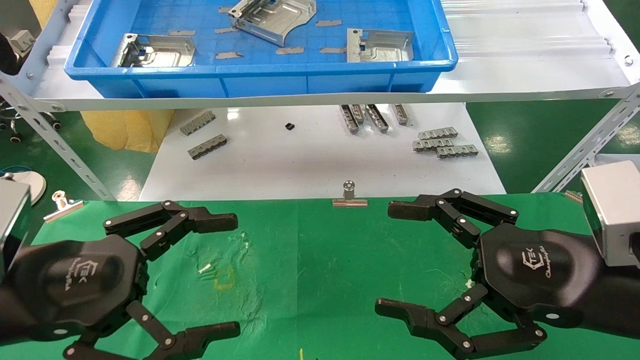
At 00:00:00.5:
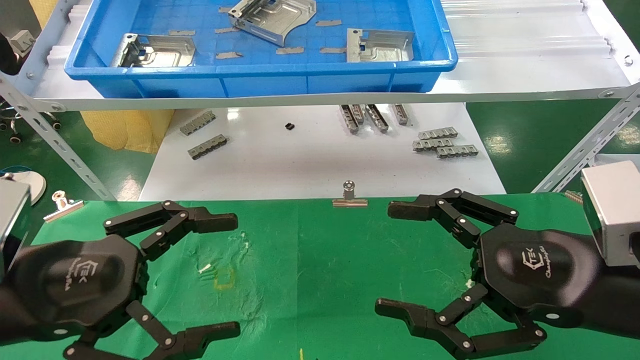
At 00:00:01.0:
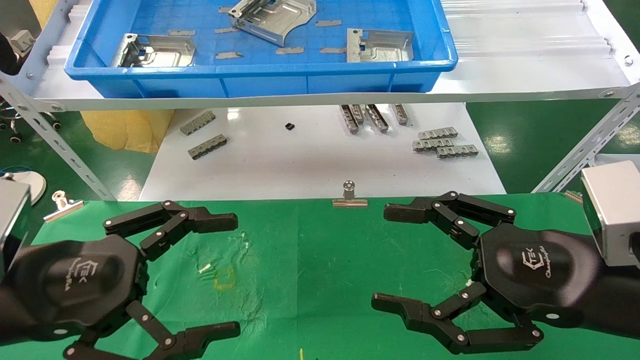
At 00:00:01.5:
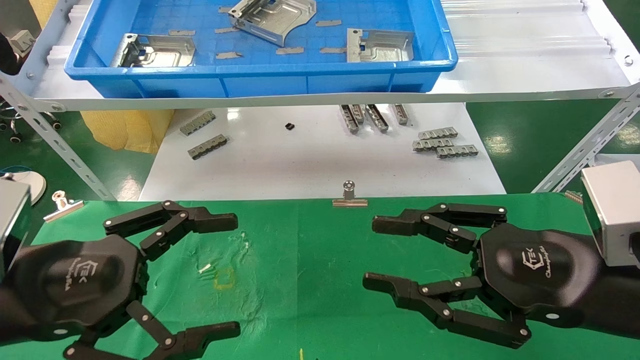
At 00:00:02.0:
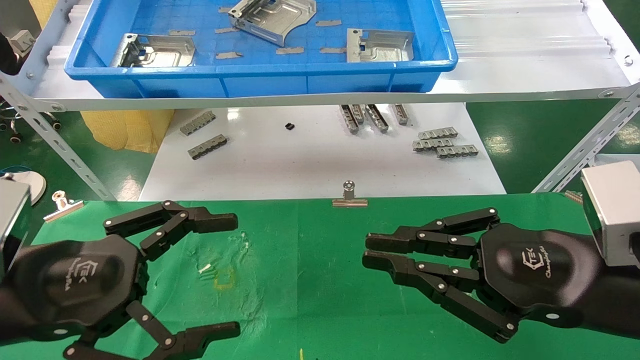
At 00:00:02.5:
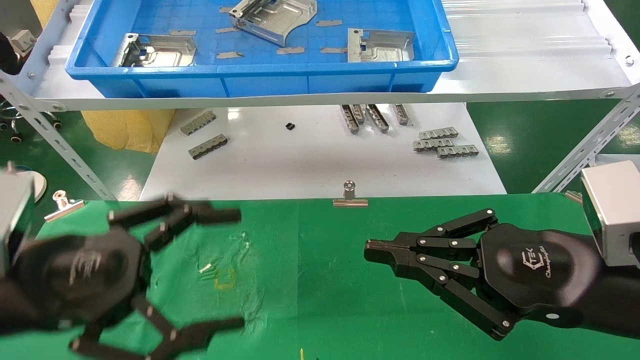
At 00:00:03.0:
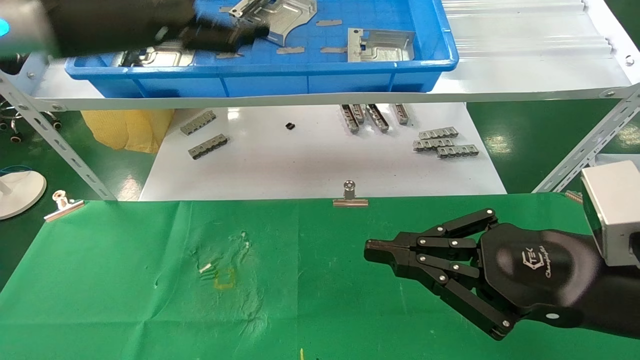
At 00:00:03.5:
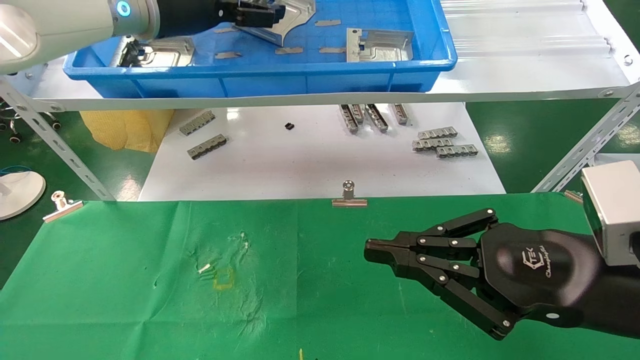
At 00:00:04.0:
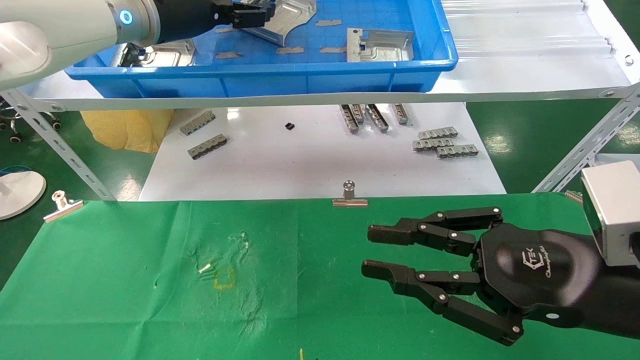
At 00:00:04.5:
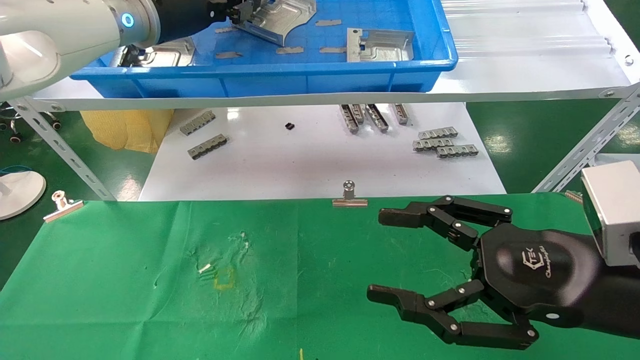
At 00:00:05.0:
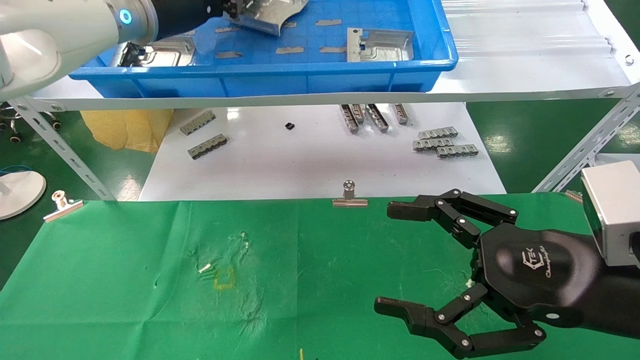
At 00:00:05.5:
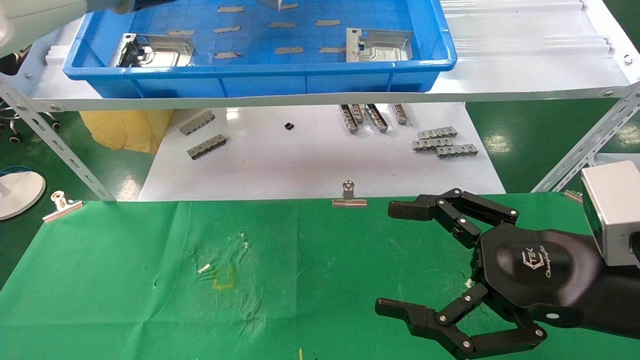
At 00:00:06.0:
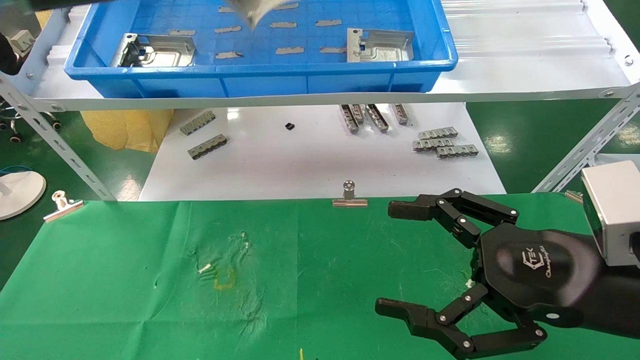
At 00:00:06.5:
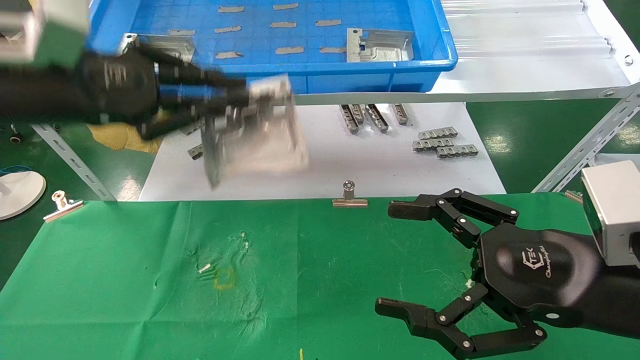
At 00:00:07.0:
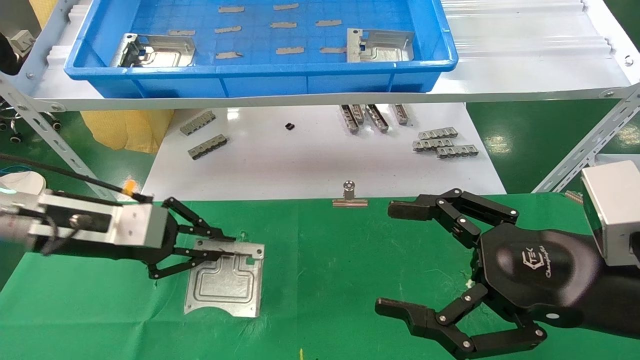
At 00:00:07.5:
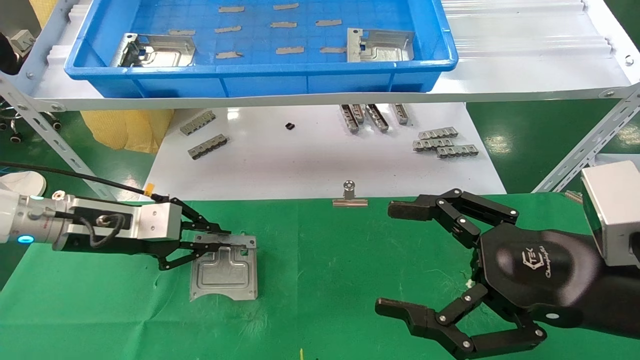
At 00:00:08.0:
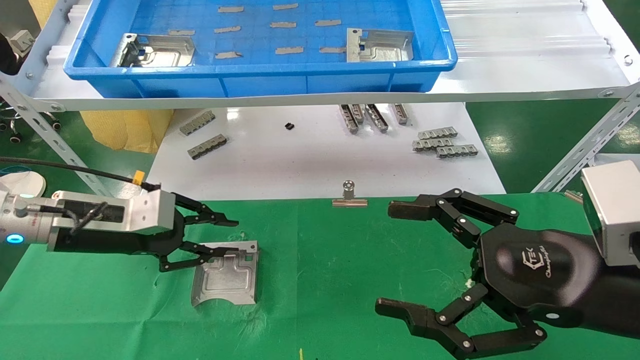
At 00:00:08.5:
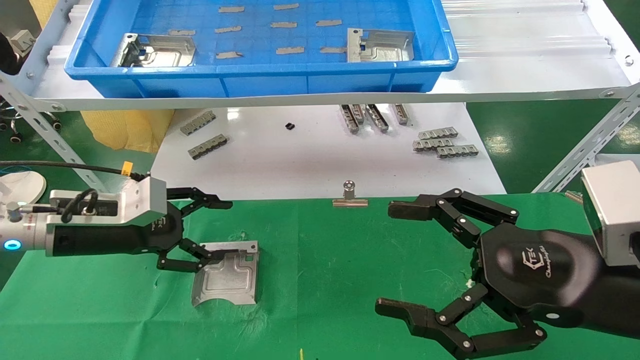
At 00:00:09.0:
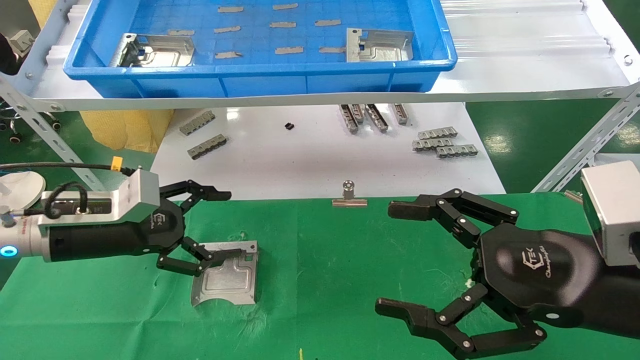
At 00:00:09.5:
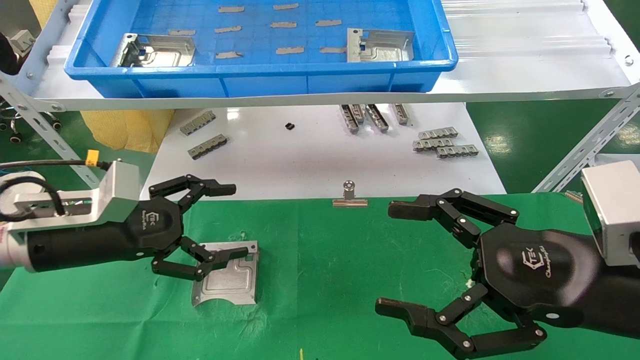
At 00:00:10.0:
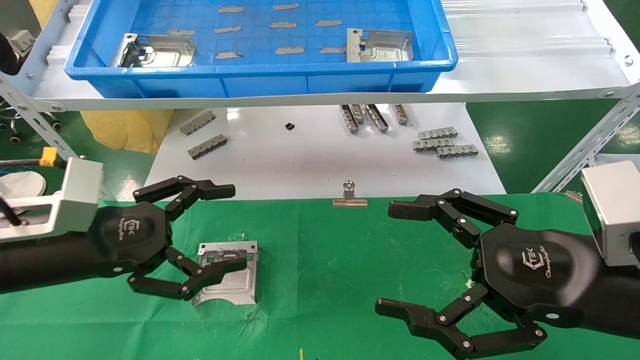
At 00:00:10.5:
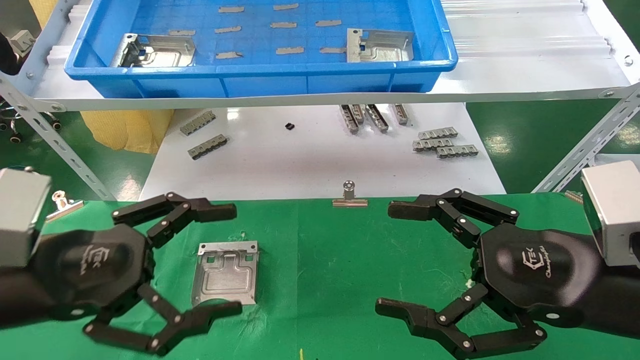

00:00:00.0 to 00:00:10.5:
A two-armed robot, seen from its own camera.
Task of the whole recording: use the mechanical arm to pick up the parts and place them on the table.
Step, 00:00:02.5 to 00:00:04.5: Pick up the hard drive bracket from the feeding area.
Step, 00:00:05.0 to 00:00:08.0: Place the hard drive bracket into the box.
00:00:00.0 to 00:00:02.0: The right gripper closes up.
00:00:02.0 to 00:00:04.0: The left gripper shifts approximately 35 cm forward and upward.
00:00:04.0 to 00:00:06.5: The left gripper is displaced backward, to the left and downward by about 20 cm, and closes. Meanwhile the right gripper opens its fingers.
00:00:06.5 to 00:00:08.5: The left gripper heads downward, covering approximately 15 cm, and opens.
00:00:08.5 to 00:00:10.5: The left gripper travels backward by some 15 cm, and opens.

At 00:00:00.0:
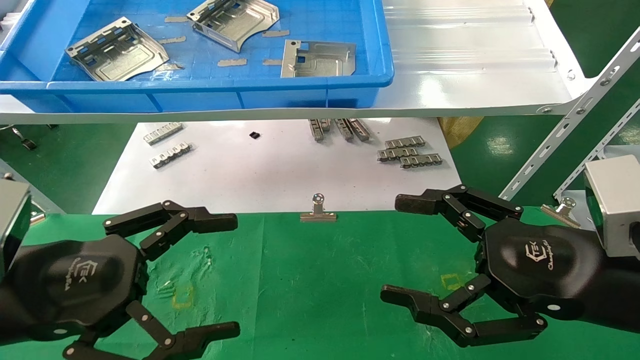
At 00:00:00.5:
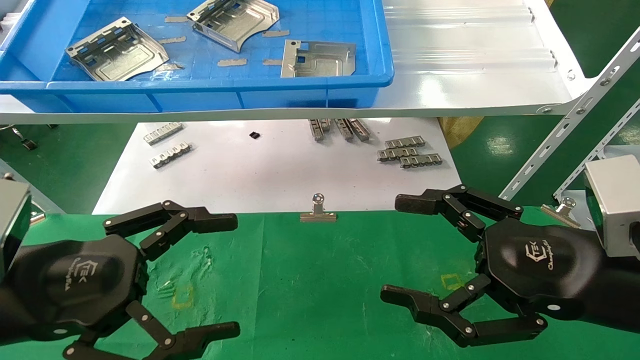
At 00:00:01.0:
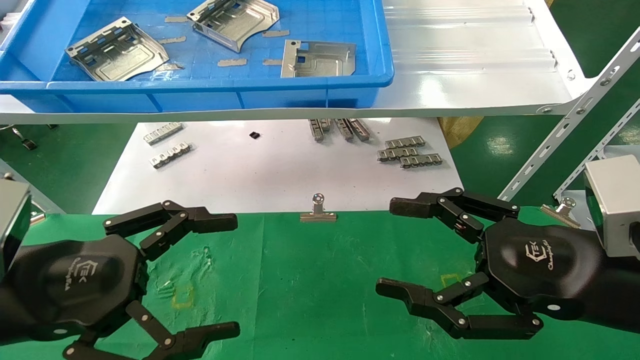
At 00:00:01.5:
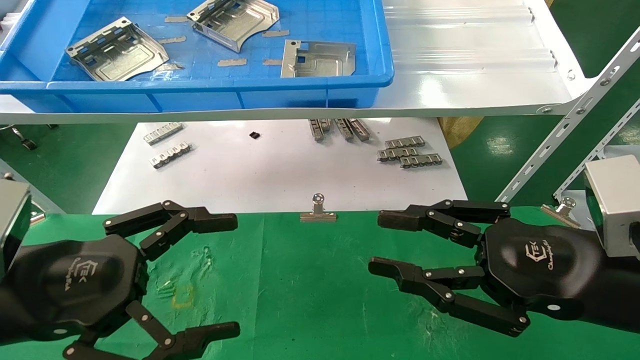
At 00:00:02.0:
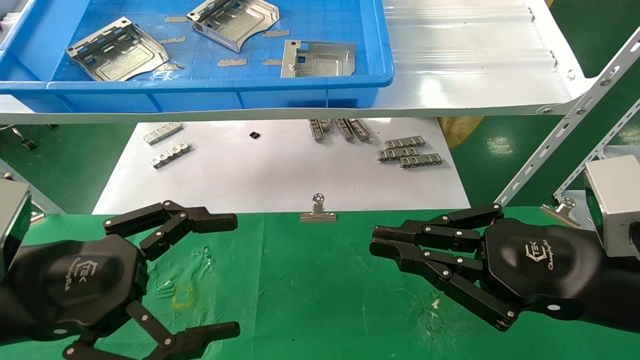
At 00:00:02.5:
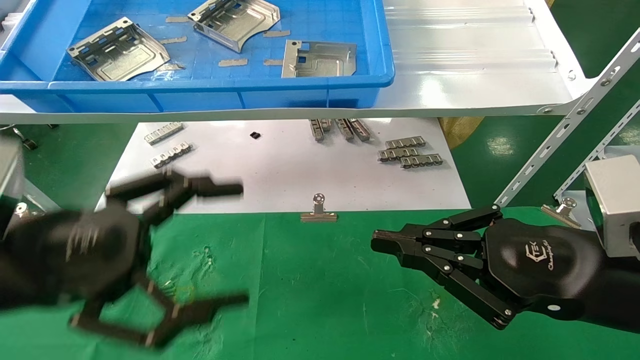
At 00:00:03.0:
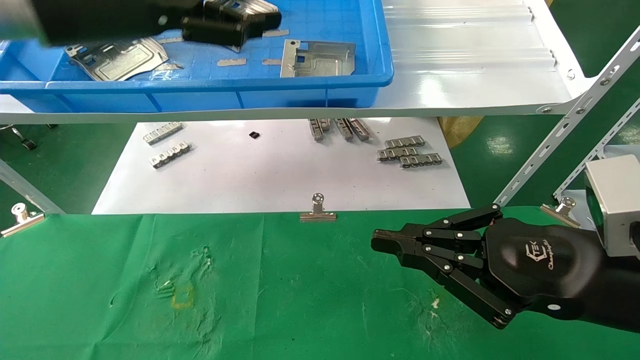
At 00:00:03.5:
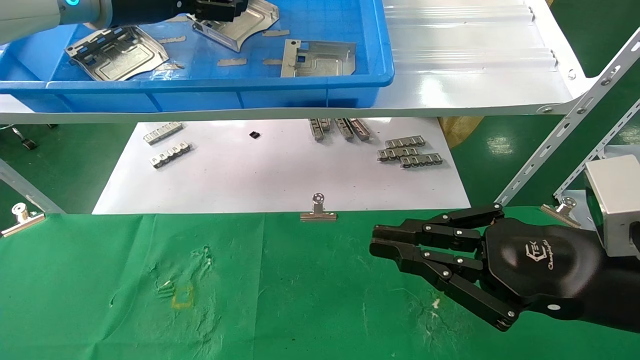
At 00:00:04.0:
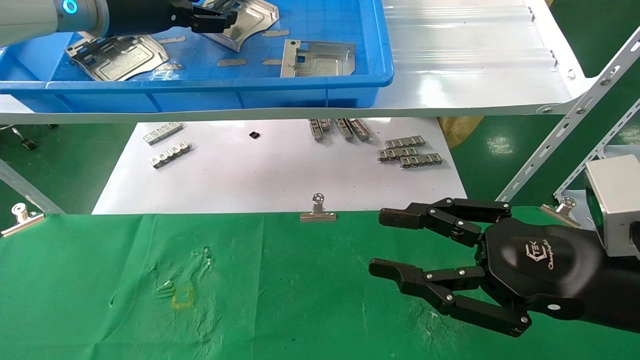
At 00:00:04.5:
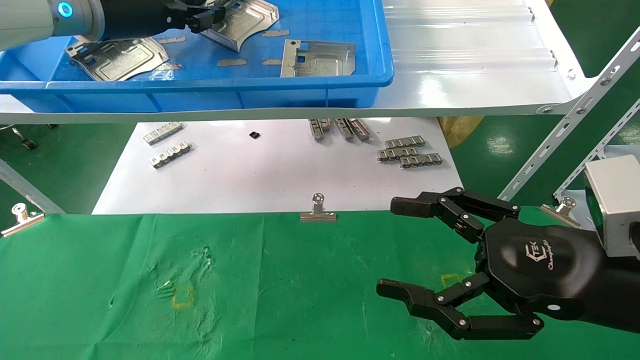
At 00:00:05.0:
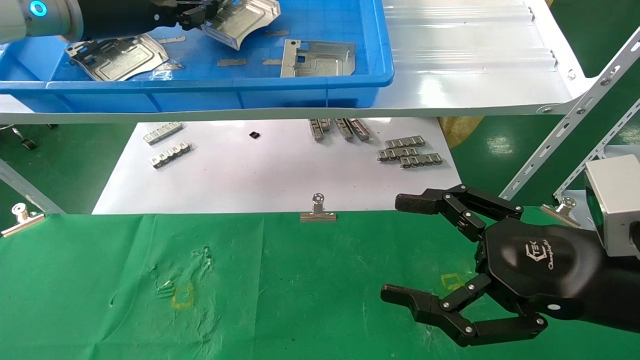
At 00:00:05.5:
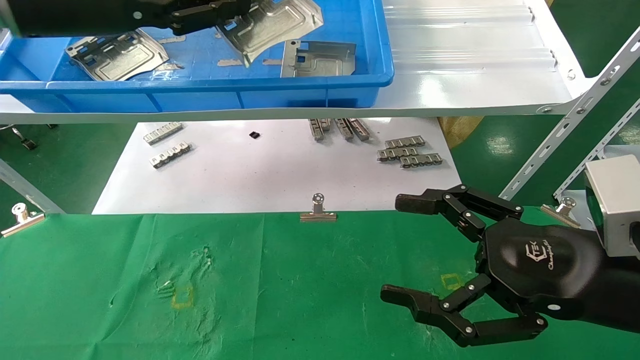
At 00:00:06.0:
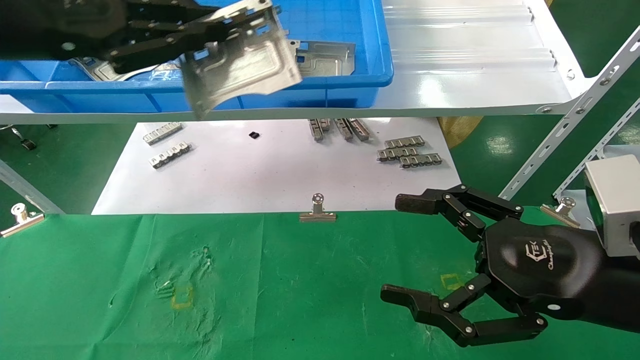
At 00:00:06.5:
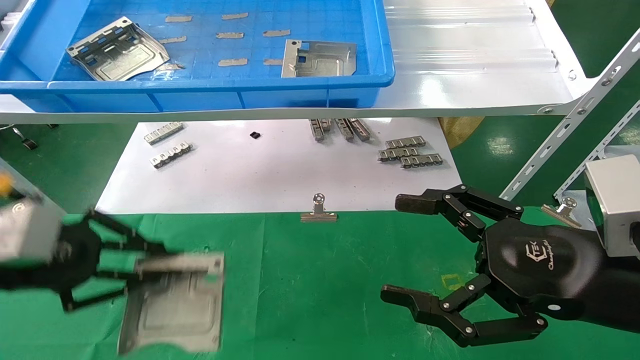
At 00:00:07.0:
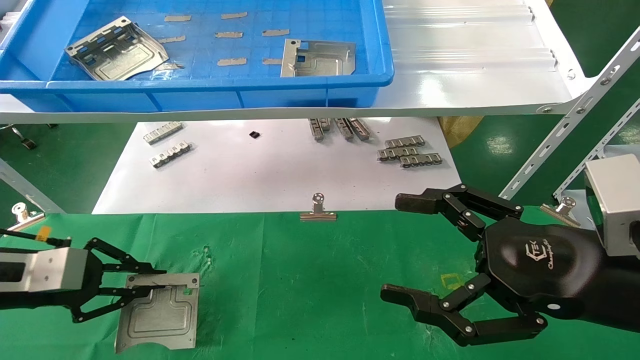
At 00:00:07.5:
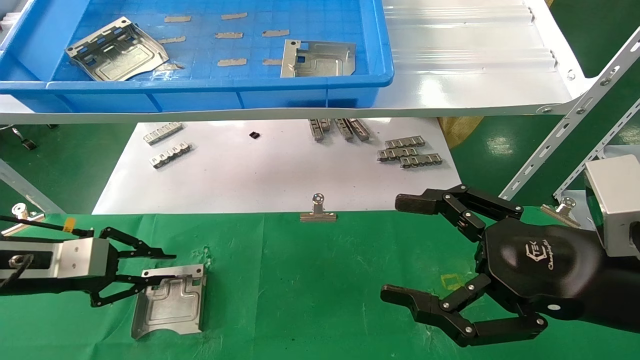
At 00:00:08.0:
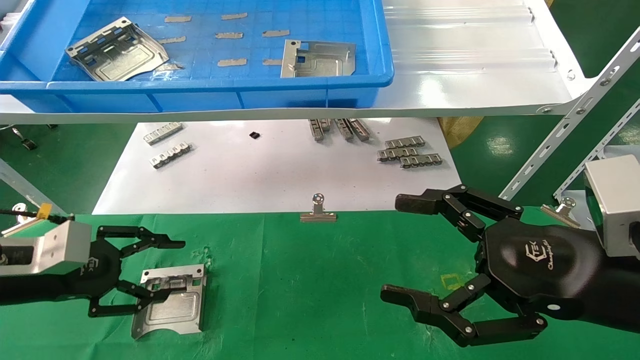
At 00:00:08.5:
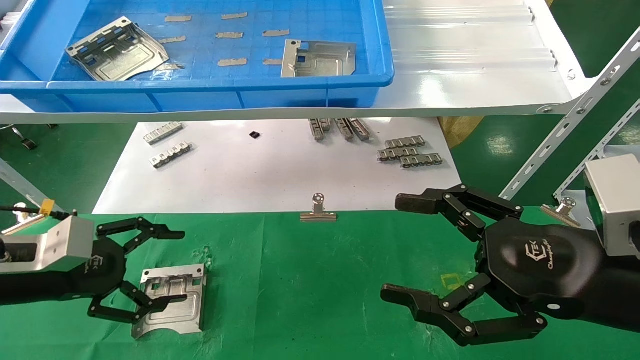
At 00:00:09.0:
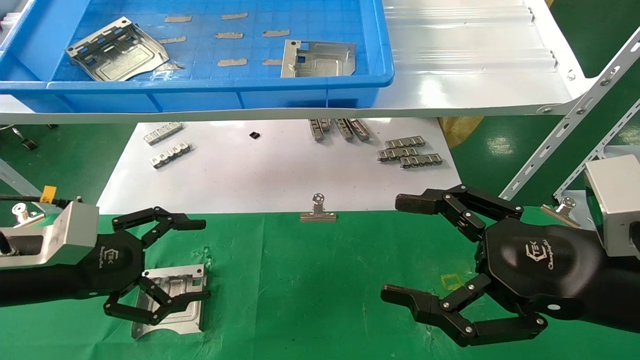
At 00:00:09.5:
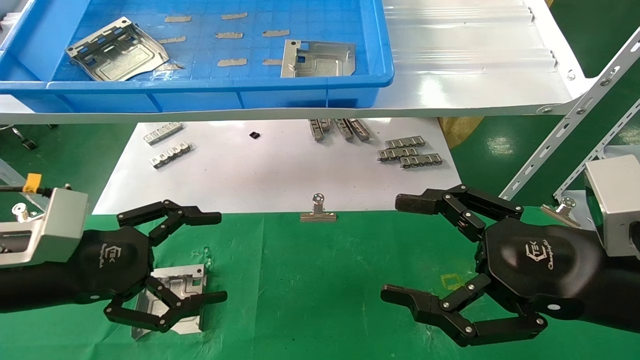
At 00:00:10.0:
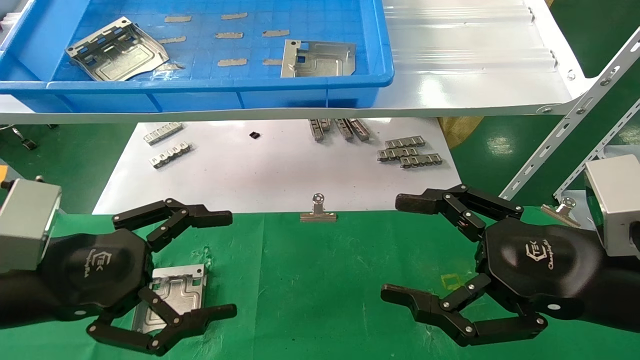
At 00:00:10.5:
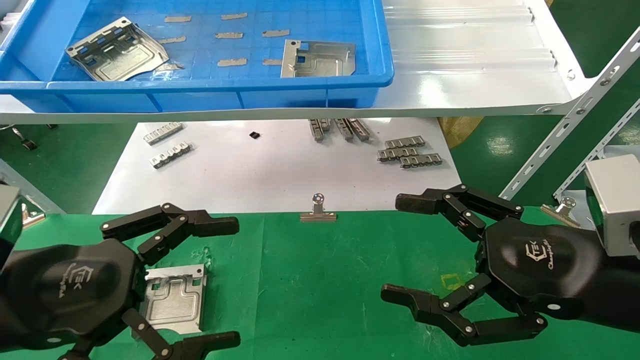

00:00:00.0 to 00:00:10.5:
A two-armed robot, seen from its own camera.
Task of the whole recording: use the mechanical arm to pick up the parts and place them on the table.
Step, 00:00:03.0 to 00:00:04.5: Pick up the hard drive bracket from the feeding area.
Step, 00:00:05.0 to 00:00:07.5: Place the hard drive bracket into the box.
00:00:00.0 to 00:00:02.0: The right gripper closes up.
00:00:02.0 to 00:00:04.0: The left gripper heads upward and forward, covering roughly 35 cm.
00:00:04.0 to 00:00:06.5: The left gripper heads downward, backward and to the left, covering about 30 cm, and closes, while the right gripper opens up.
00:00:06.5 to 00:00:08.5: The left gripper goes about 10 cm downward, and opens up.
00:00:08.5 to 00:00:10.5: The left gripper heads backward and to the right, covering approximately 15 cm.
